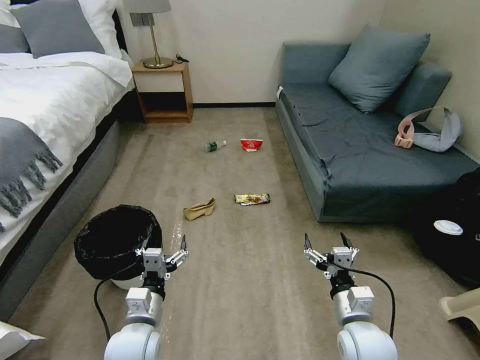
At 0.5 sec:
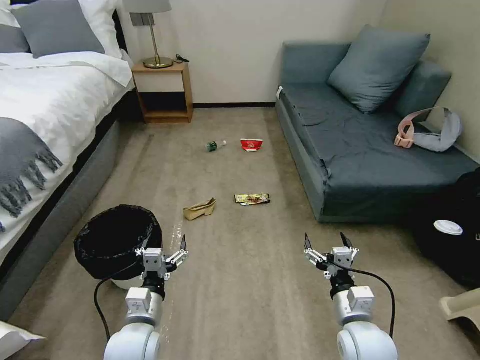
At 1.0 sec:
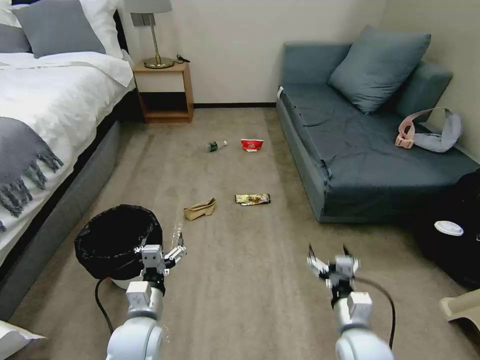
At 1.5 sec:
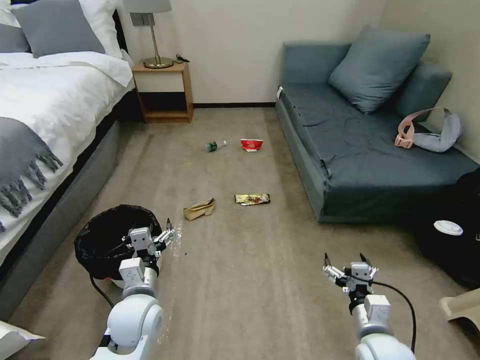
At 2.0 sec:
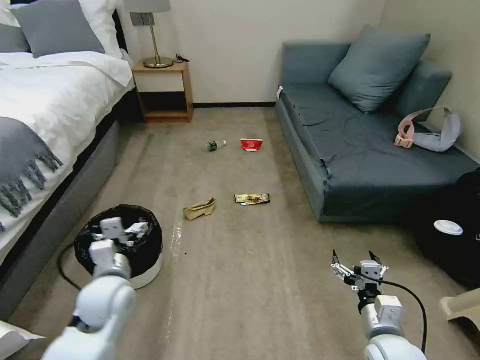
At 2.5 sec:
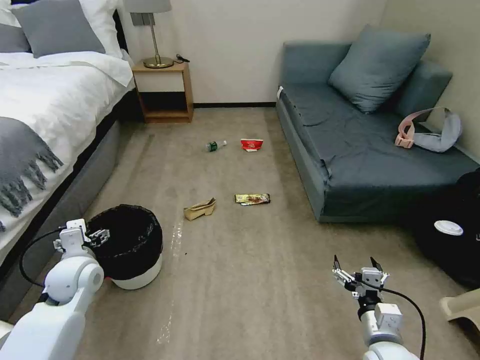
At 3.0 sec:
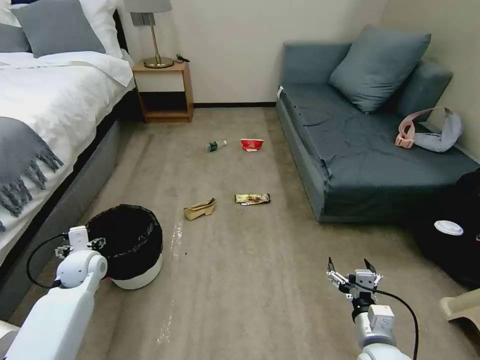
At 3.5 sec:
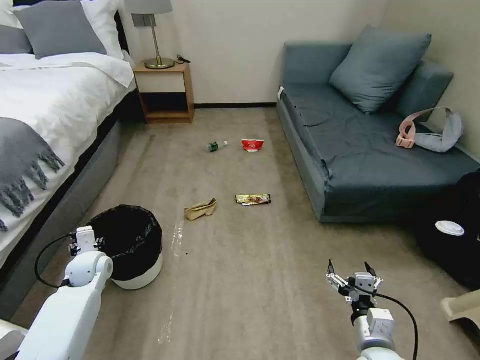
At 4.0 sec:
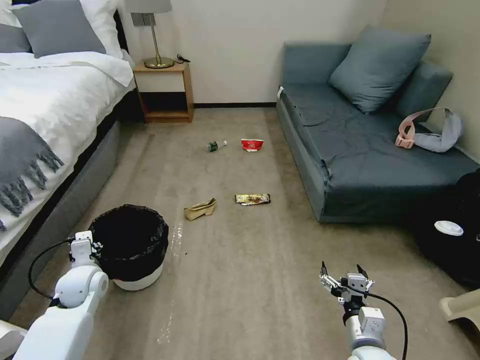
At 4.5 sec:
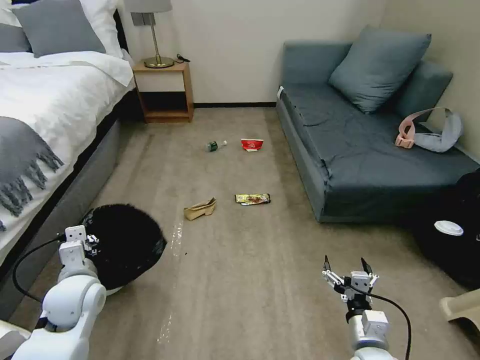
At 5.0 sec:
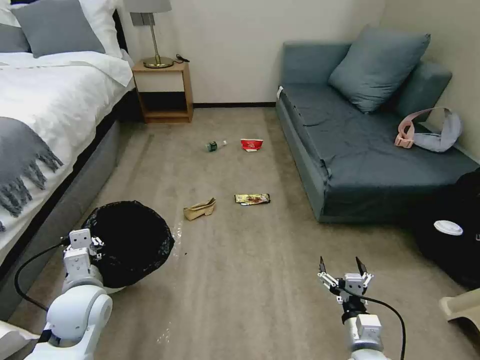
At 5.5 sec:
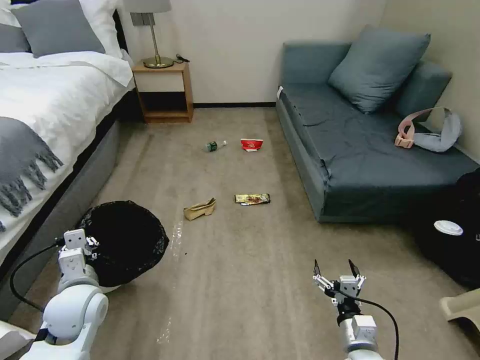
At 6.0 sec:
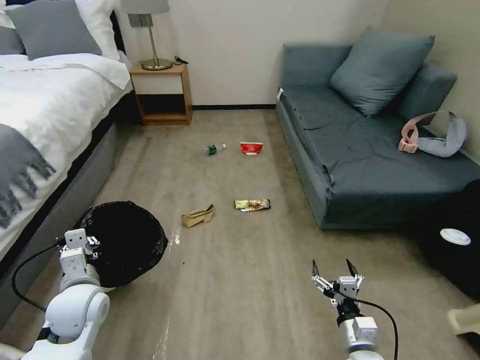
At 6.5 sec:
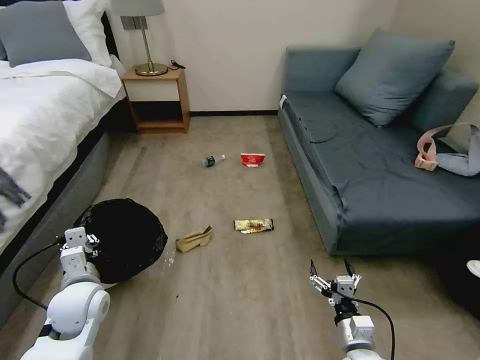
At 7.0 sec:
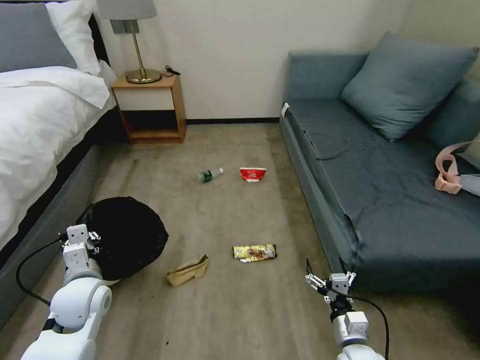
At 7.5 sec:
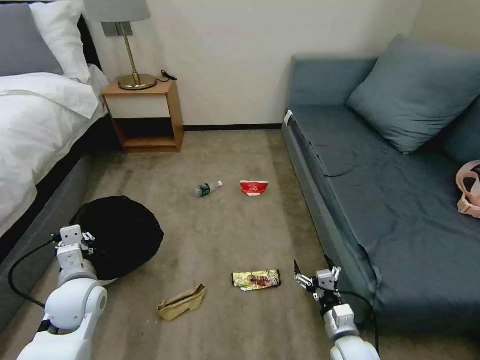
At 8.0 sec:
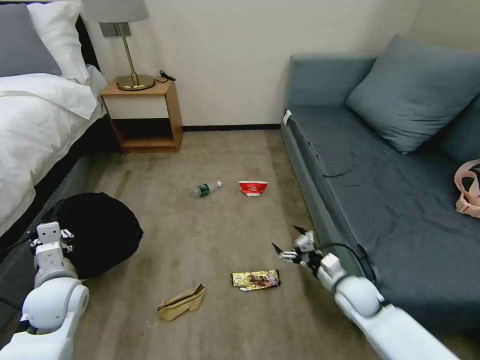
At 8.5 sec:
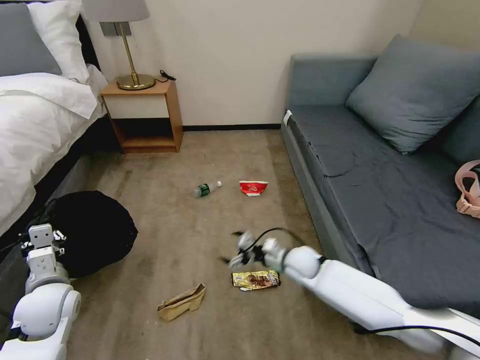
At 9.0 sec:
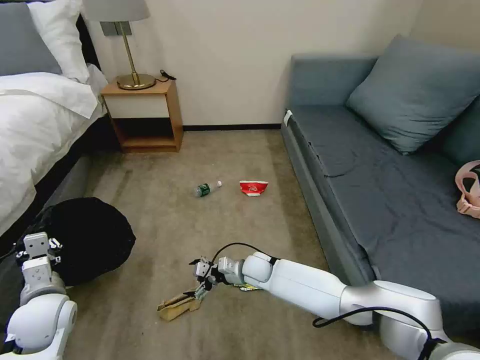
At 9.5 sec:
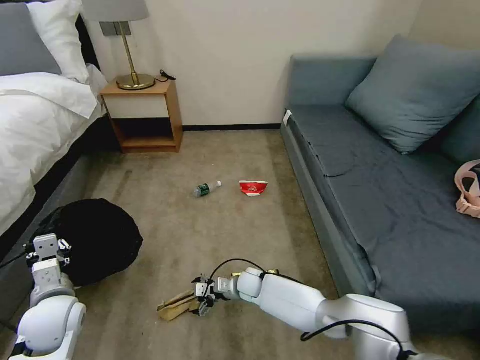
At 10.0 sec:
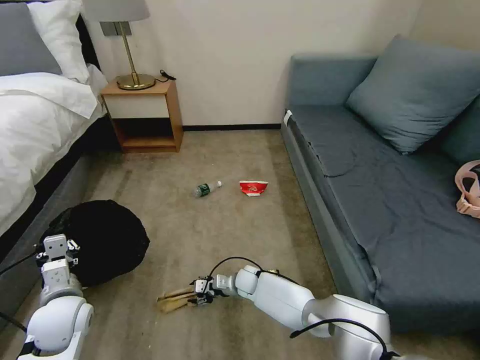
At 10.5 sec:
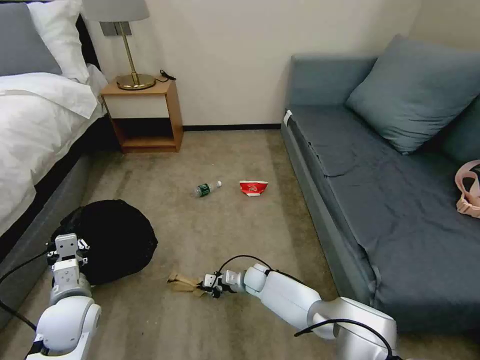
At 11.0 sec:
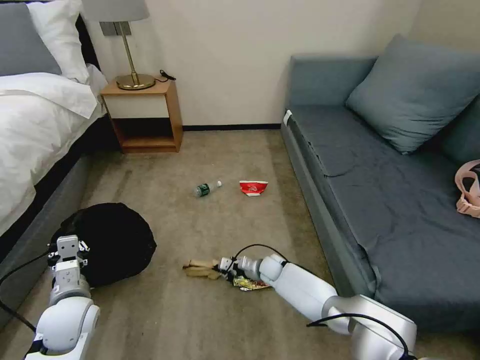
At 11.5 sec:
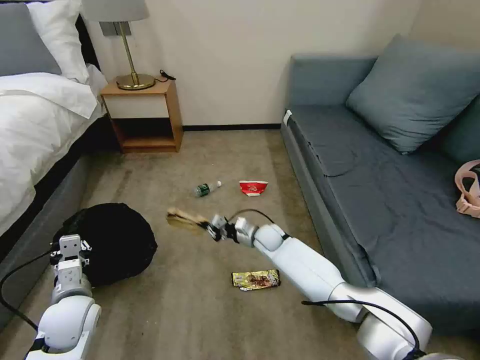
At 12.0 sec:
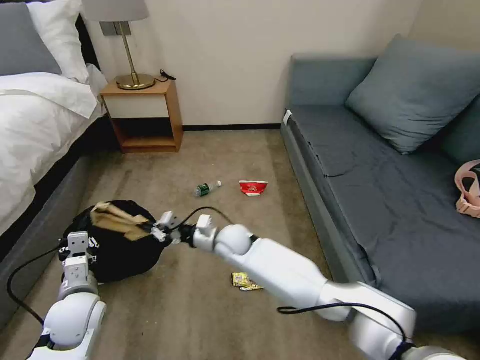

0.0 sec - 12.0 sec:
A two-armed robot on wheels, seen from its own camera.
Task of the whole recording: Pick up the trash bin, then pick up the garbage on the floor and place it into the trash bin.
2.0 sec - 4.0 sec: The left gripper travels to the left, downward and forward by approximately 10 cm, and closes.
4.0 sec - 6.0 sec: The left gripper travels backward, upward and to the right by roughly 10 cm.
6.0 sec - 8.0 sec: The right gripper moves forward, about 15 cm. Meanwhile the left gripper shifts by about 5 cm.
8.0 sec - 10.0 sec: The right gripper moves to the left and downward, about 30 cm, and closes.
10.0 sec - 12.0 sec: The right gripper moves upward, some 20 cm, and closes.

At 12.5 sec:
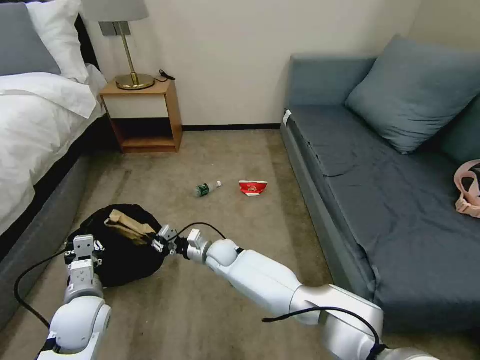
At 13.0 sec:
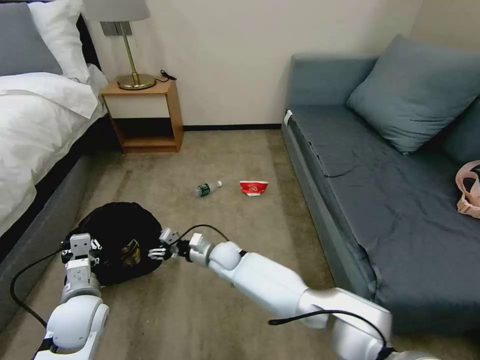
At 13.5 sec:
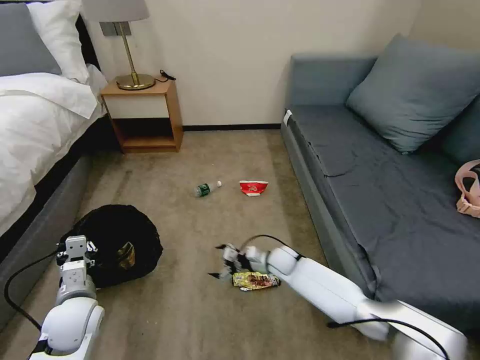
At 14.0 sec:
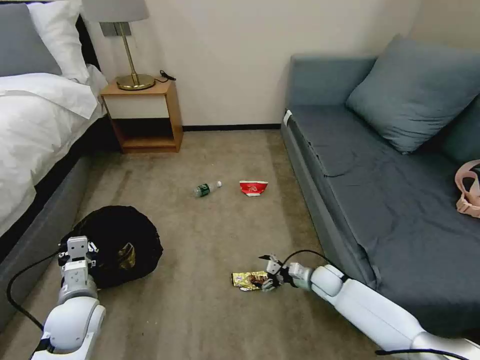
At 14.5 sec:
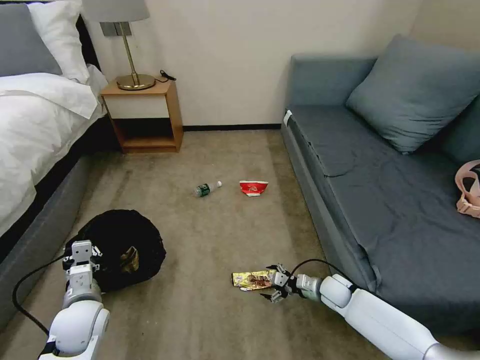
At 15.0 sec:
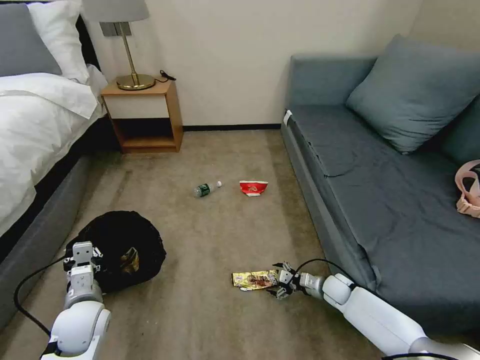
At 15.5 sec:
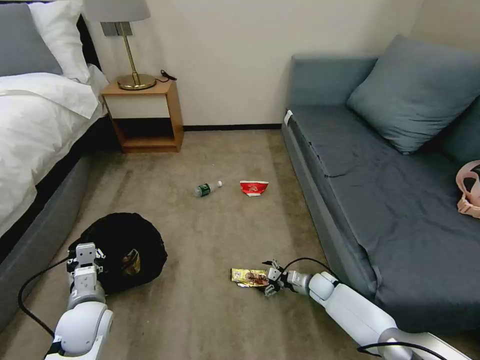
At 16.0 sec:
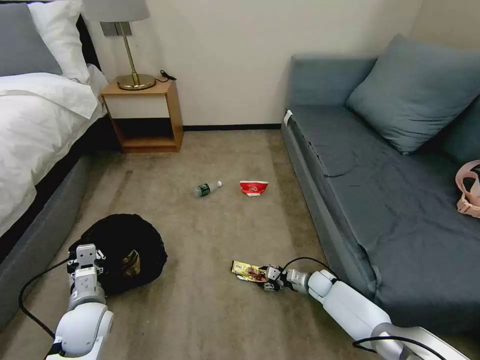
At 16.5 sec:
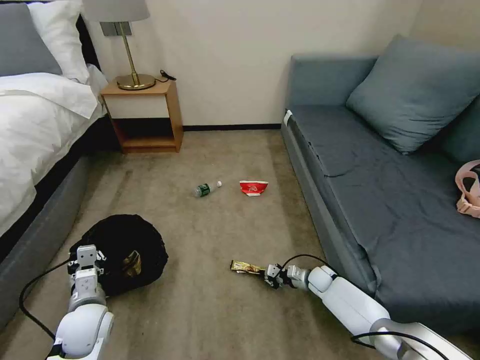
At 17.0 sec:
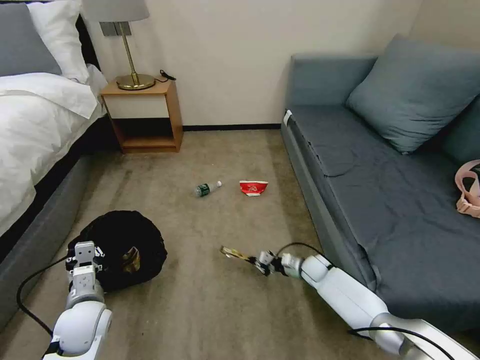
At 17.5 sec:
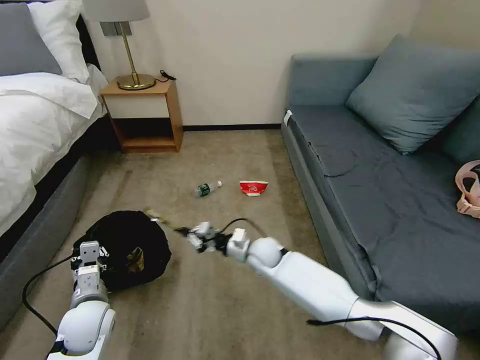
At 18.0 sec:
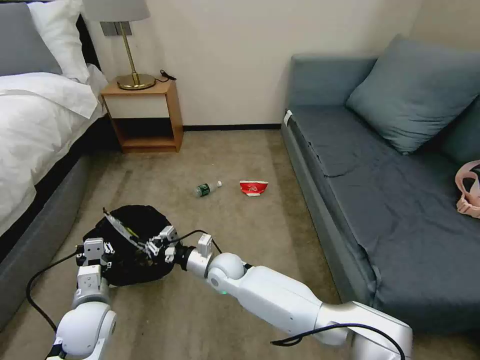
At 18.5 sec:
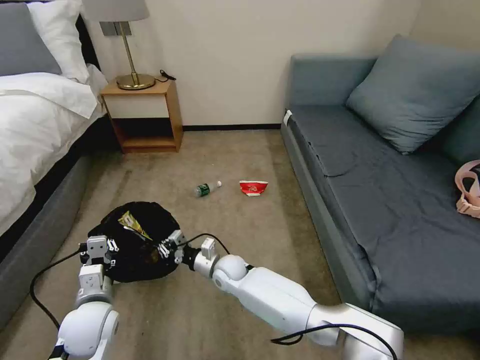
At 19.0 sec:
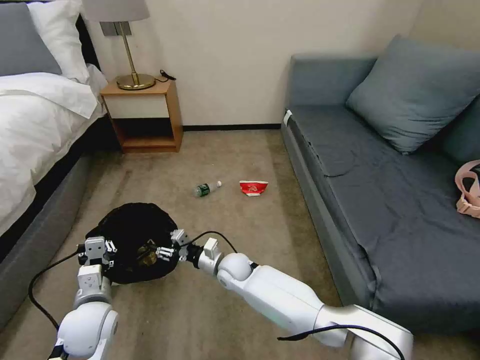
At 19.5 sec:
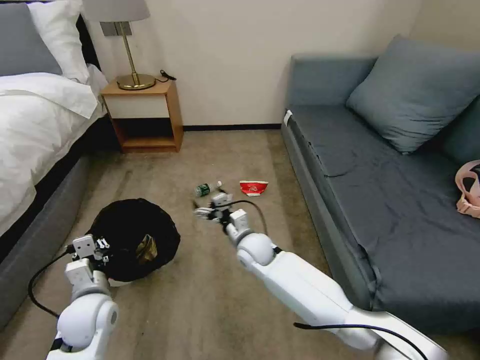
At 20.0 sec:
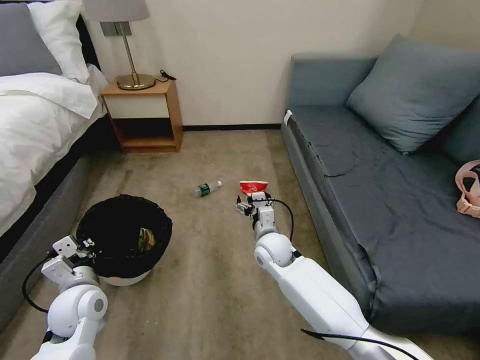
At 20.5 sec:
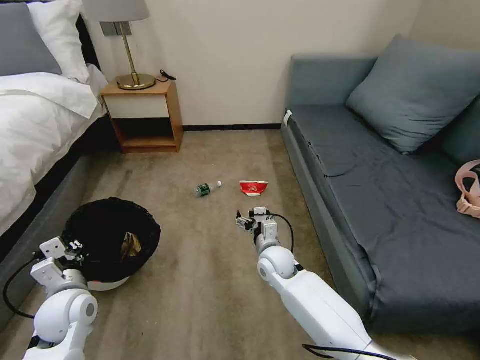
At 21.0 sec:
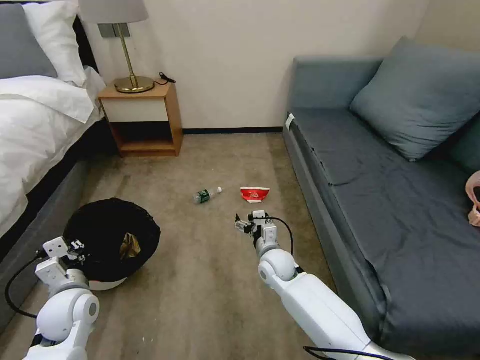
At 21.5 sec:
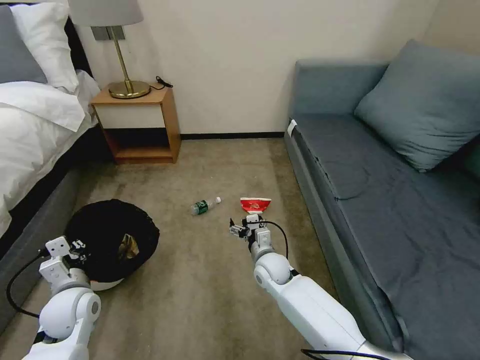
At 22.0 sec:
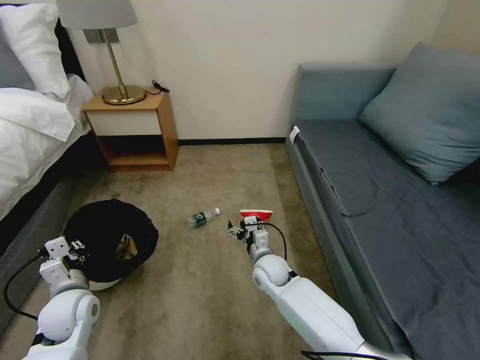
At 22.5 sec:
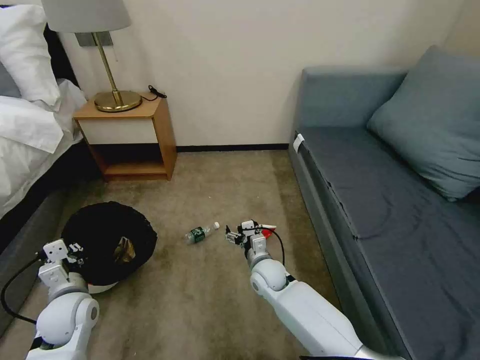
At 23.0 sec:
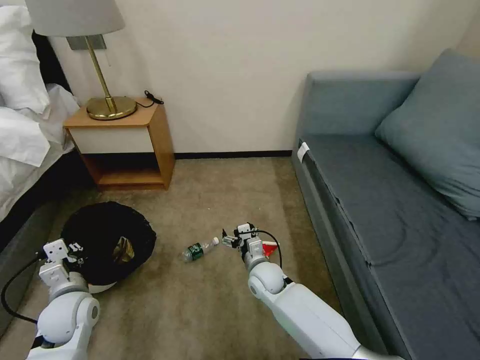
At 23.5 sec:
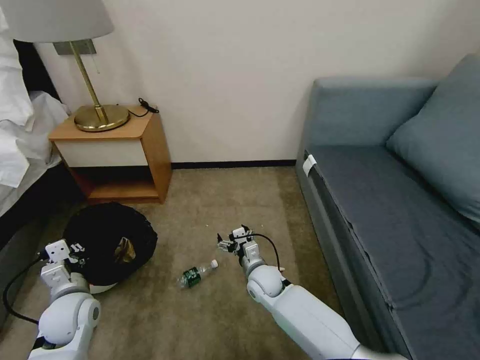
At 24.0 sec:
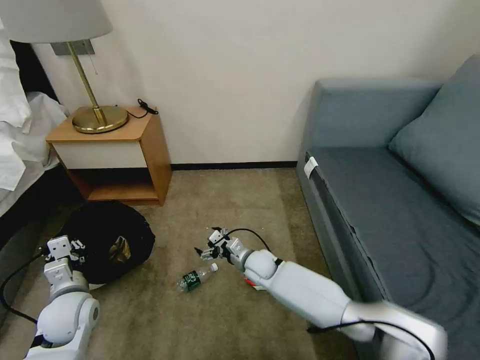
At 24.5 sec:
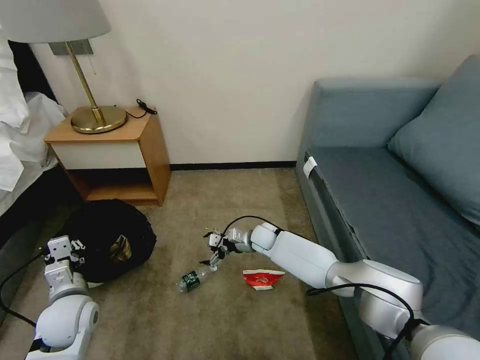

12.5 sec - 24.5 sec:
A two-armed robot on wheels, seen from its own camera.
Task of the whole recording: Pick up the trash bin, then pick up the garbage on the floor and place it into the trash bin.
12.5 sec - 14.5 sec: The right gripper goes about 35 cm to the right, and opens up.
14.5 sec - 16.5 sec: The right gripper travels forward and downward by some 10 cm, and closes its fingers.
16.5 sec - 18.5 sec: The right gripper travels to the left by some 30 cm.
18.5 sec - 20.5 sec: The right gripper heads to the right and upward, covering about 15 cm, and opens its fingers. Meanwhile the left gripper ends up some 5 cm from where it was.
22.5 sec - 24.5 sec: The right gripper shifts some 15 cm forward.

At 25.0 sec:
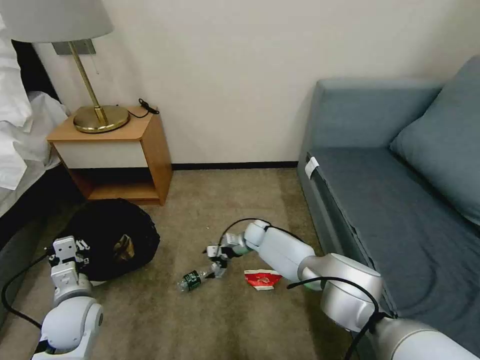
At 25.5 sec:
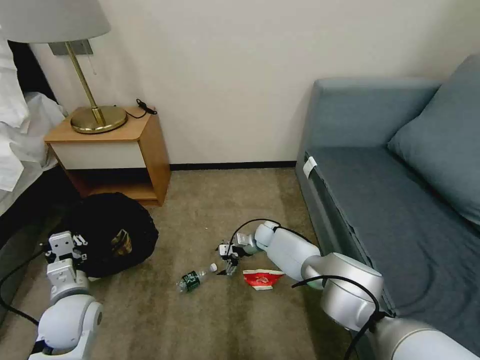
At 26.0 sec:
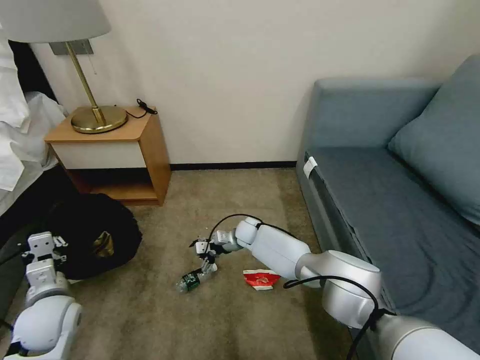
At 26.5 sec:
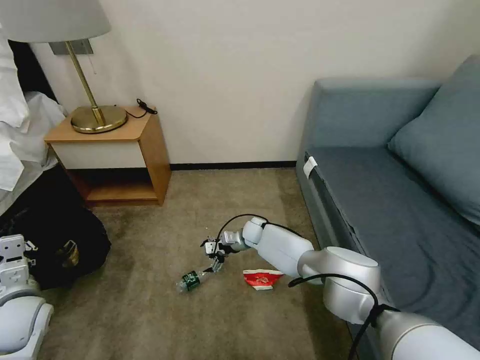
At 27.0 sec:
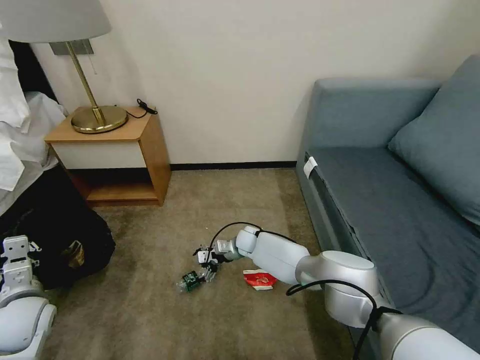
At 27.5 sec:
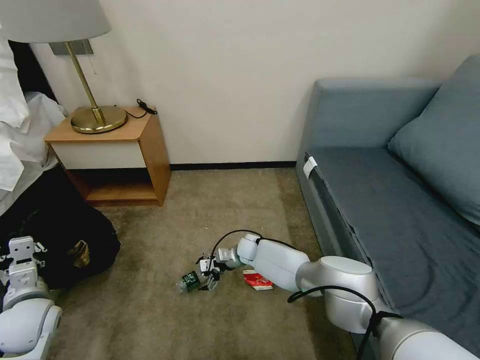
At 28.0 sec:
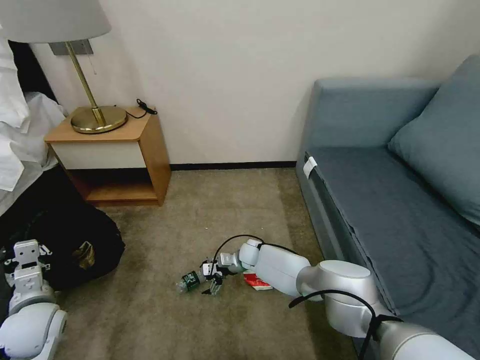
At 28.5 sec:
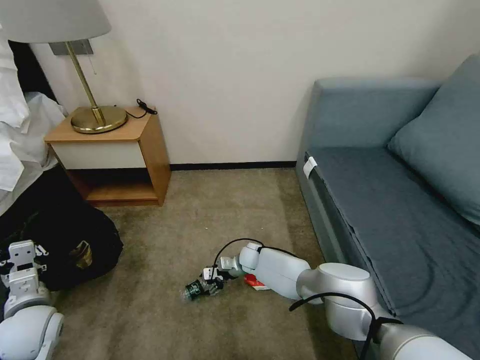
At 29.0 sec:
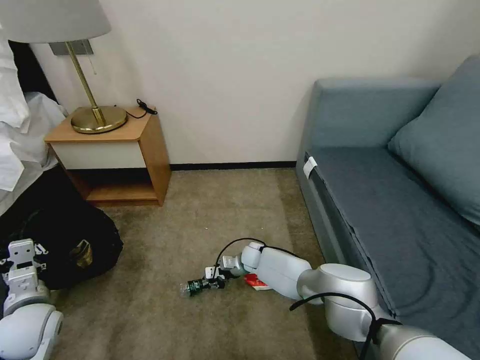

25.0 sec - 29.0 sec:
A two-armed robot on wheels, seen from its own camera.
Task of the whole recording: Pick up the trash bin, then pick up the garbage on the floor and place it into the trash bin.
25.0 sec - 27.0 sec: The left gripper heads to the left, covering roughly 10 cm.
27.0 sec - 29.0 sec: The right gripper shifts by roughly 5 cm, and closes its fingers.
